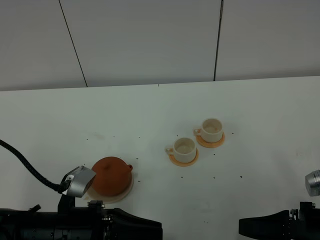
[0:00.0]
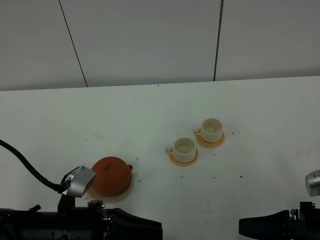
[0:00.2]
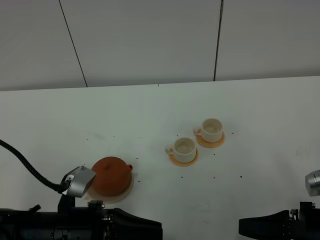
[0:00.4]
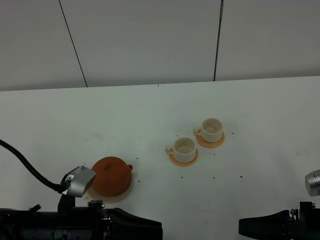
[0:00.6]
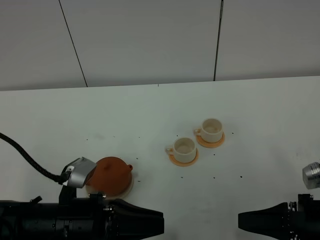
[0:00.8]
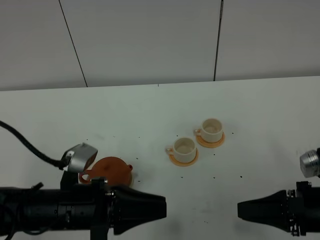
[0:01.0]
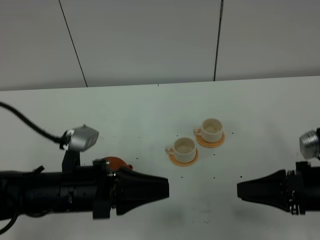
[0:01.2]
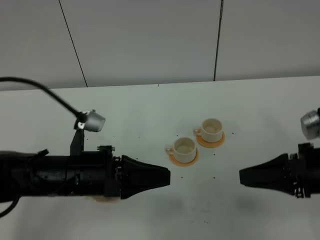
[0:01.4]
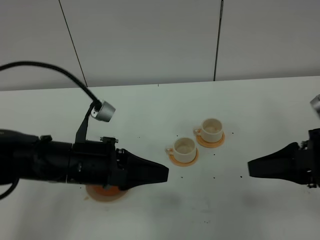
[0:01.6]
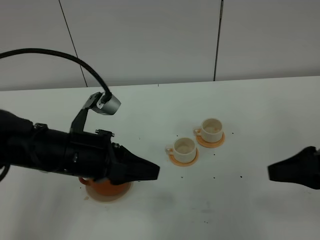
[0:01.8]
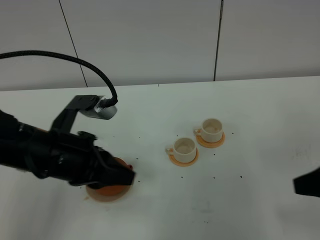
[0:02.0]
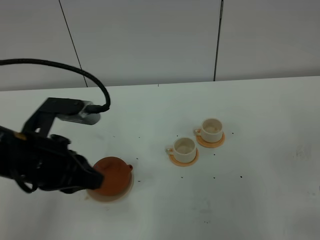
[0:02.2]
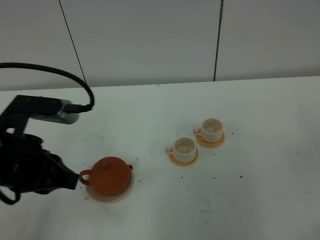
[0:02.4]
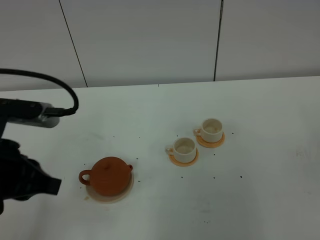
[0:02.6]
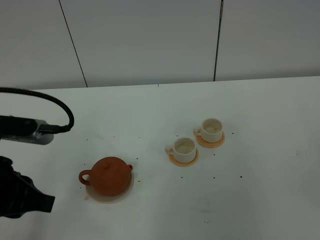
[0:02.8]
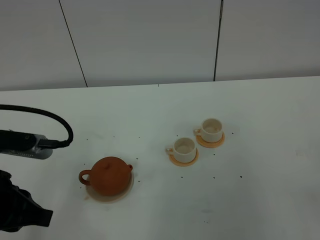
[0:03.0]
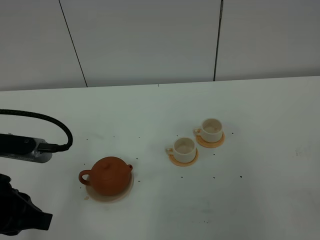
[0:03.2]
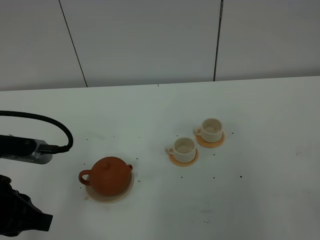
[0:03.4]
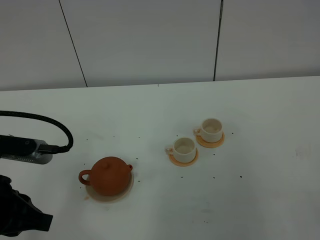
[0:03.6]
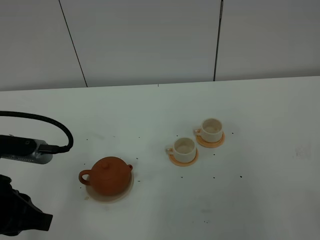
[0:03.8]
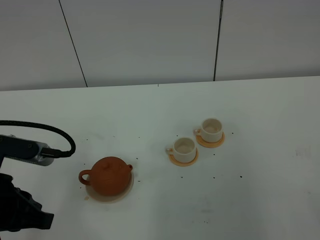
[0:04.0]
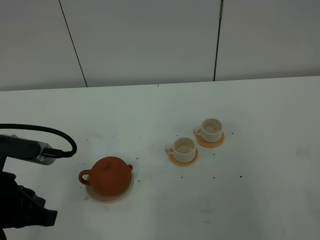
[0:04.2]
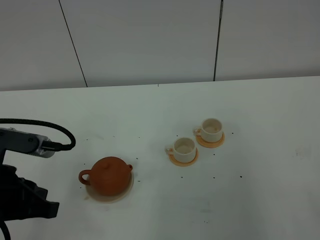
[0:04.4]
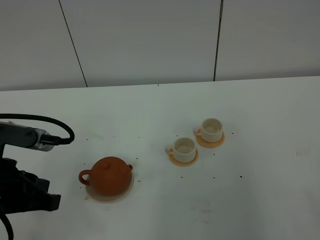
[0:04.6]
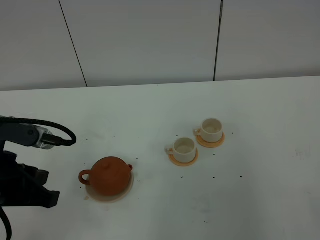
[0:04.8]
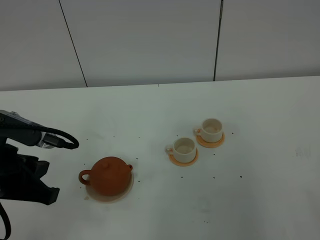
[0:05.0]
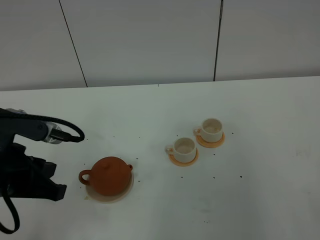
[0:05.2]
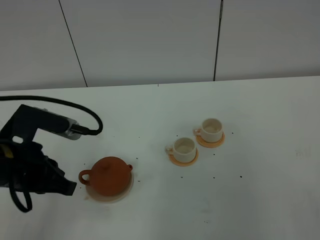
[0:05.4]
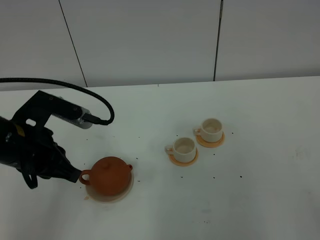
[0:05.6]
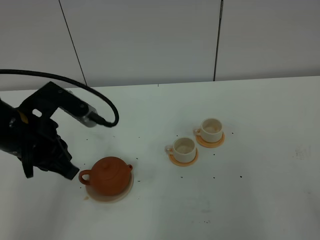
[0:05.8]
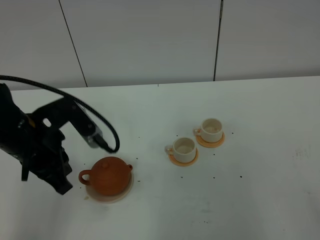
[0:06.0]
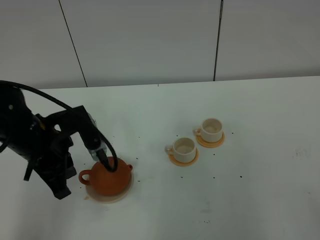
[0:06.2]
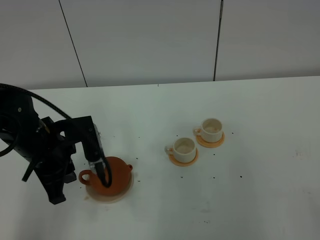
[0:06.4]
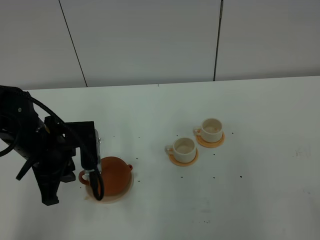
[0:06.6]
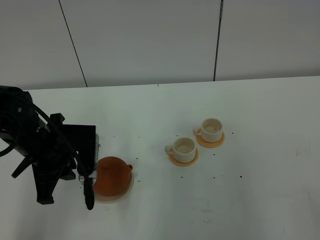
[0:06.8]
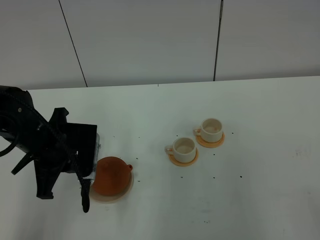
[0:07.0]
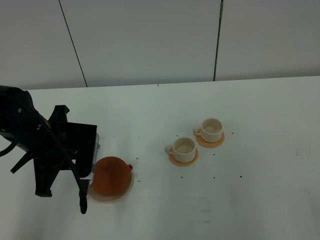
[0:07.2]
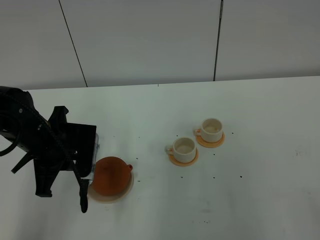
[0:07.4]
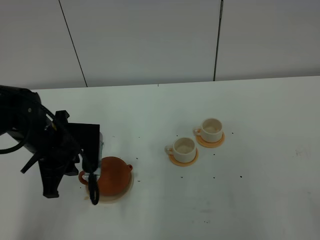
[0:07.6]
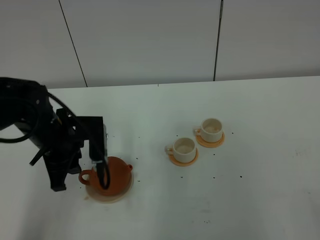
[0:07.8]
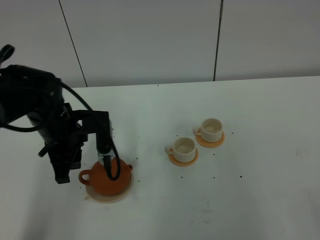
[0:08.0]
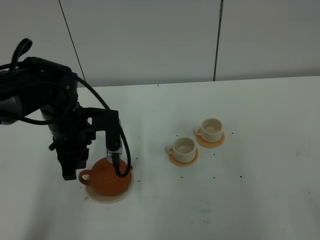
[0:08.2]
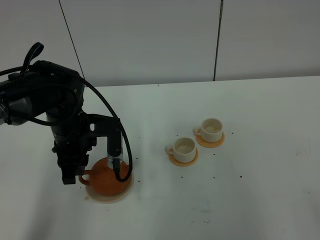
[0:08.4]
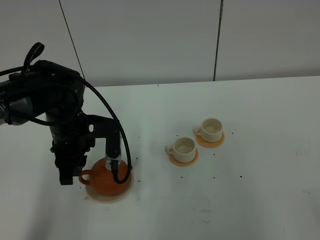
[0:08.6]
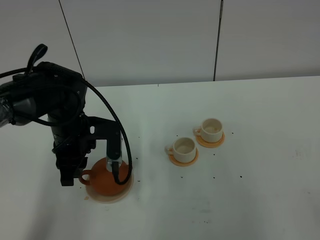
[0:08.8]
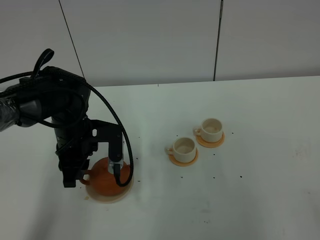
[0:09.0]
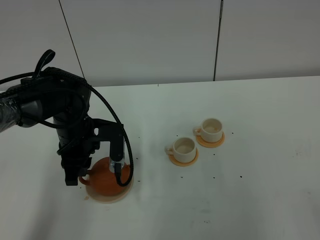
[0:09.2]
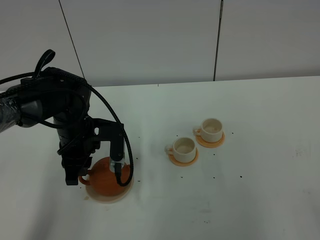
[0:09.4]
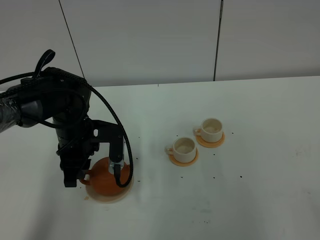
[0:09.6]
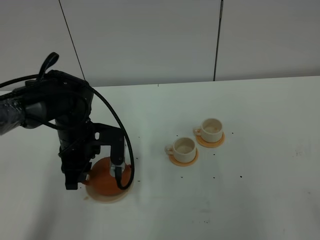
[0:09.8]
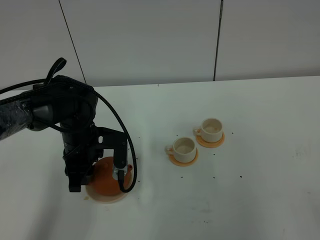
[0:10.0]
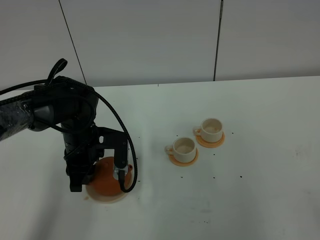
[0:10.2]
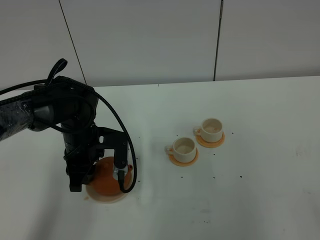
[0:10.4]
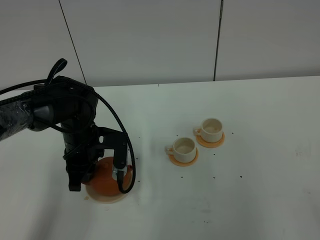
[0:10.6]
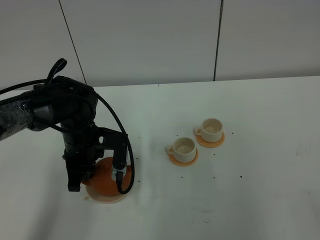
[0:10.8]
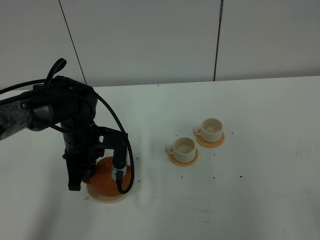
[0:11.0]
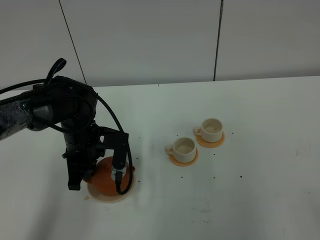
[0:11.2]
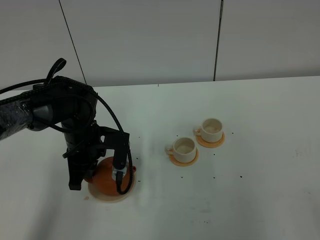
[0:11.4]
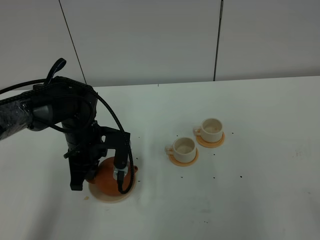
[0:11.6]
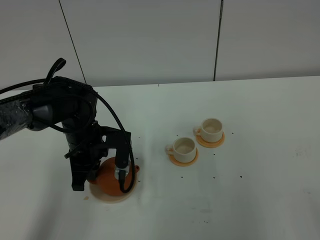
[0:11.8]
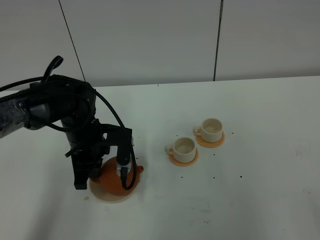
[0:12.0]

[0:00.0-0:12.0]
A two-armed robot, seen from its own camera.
Task of the whole recording: grasp the brown teapot and pour the tea into the two white teacups one by one, put the brown teapot back in its original place.
0:00.0 to 0:01.6: The right gripper shifts approximately 15 cm upward and forward, and closes up. The left gripper heads forward and upward, covering approximately 10 cm.
0:01.6 to 0:03.0: The right gripper is displaced backward by some 20 cm, while the left gripper travels to the left, backward and upward by approximately 15 cm.
0:04.4 to 0:06.0: The left gripper is displaced forward by approximately 10 cm.
0:06.0 to 0:07.6: The left gripper ends up about 5 cm from where it was.
0:07.6 to 0:09.0: The left gripper moves some 5 cm.
0:09.0 to 0:10.4: The grippers make only small movements.
0:10.4 to 0:12.0: The left gripper closes.

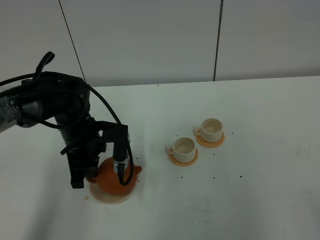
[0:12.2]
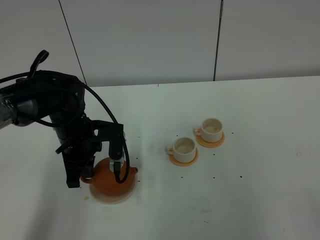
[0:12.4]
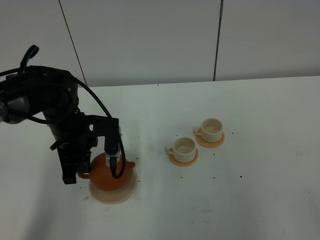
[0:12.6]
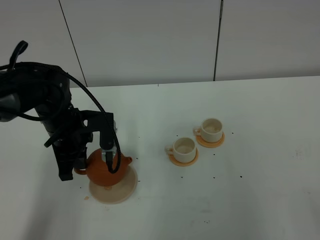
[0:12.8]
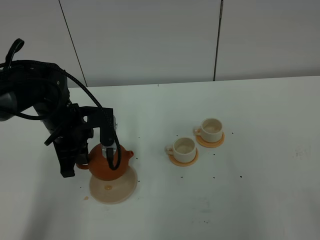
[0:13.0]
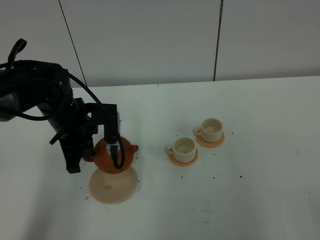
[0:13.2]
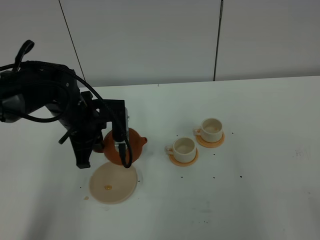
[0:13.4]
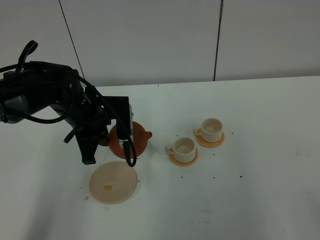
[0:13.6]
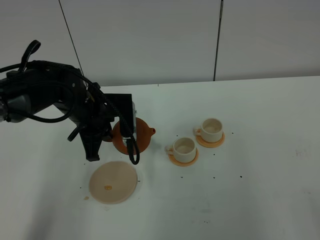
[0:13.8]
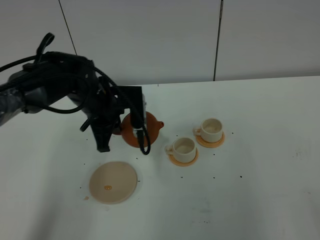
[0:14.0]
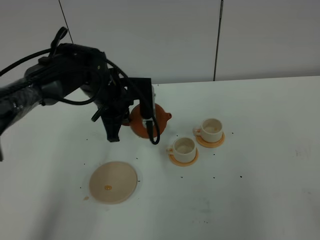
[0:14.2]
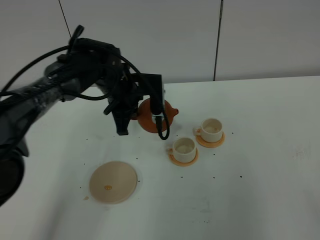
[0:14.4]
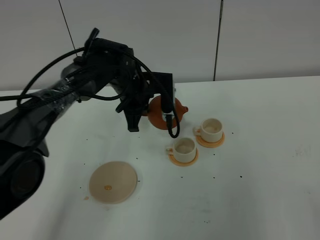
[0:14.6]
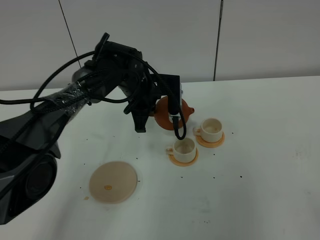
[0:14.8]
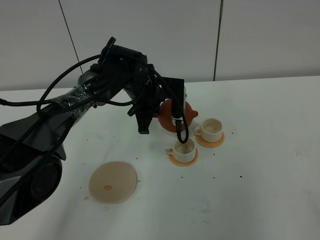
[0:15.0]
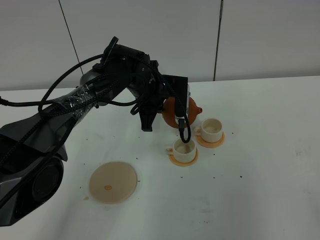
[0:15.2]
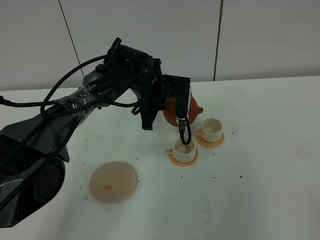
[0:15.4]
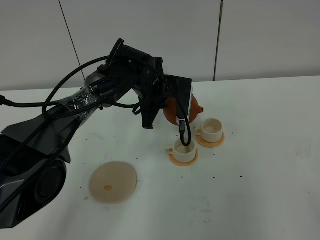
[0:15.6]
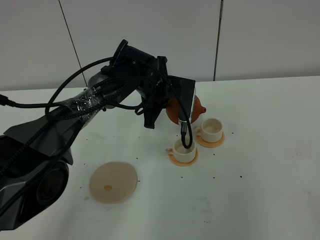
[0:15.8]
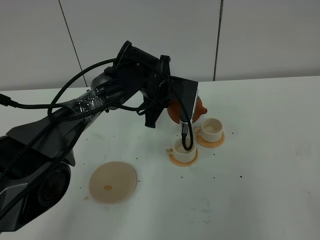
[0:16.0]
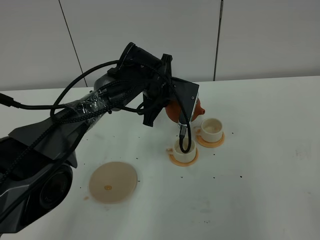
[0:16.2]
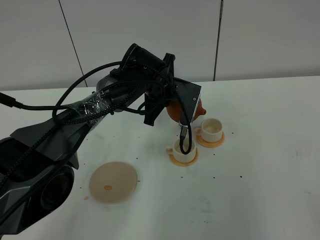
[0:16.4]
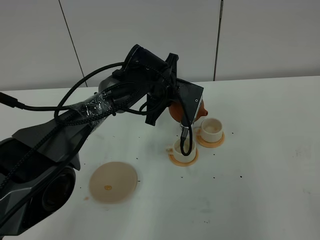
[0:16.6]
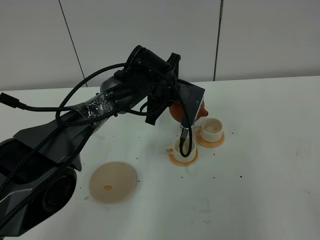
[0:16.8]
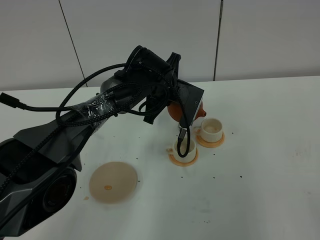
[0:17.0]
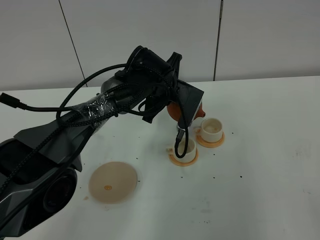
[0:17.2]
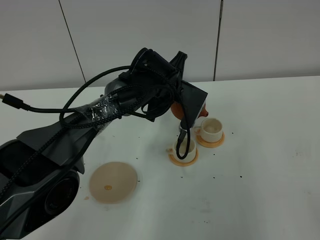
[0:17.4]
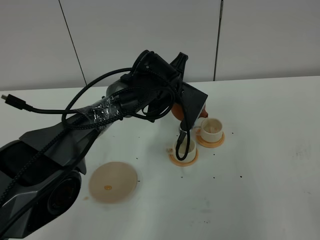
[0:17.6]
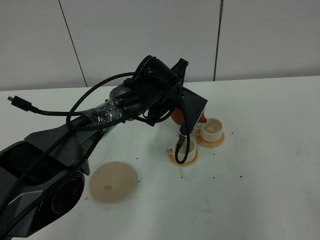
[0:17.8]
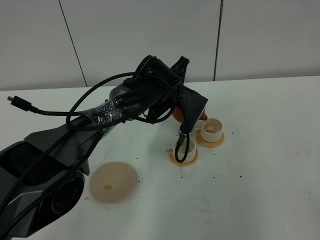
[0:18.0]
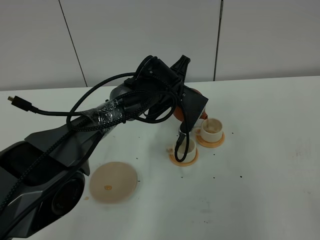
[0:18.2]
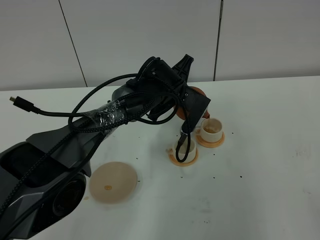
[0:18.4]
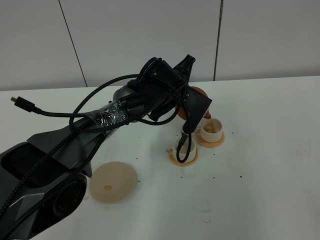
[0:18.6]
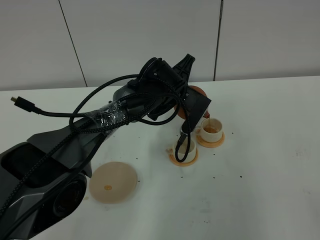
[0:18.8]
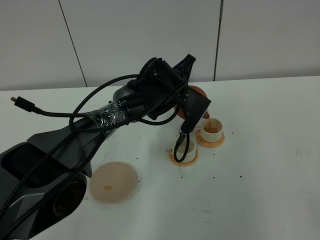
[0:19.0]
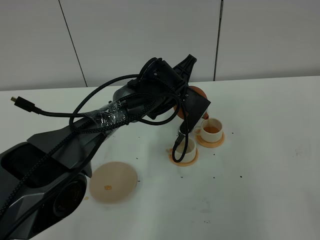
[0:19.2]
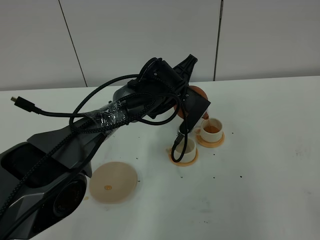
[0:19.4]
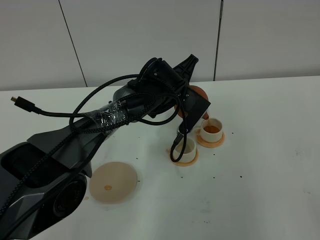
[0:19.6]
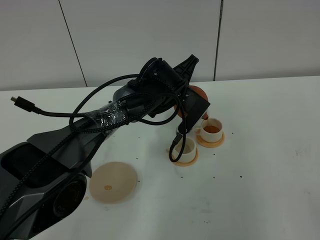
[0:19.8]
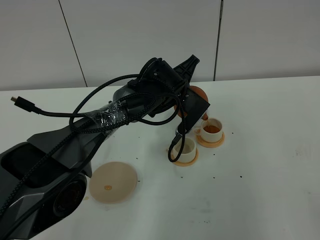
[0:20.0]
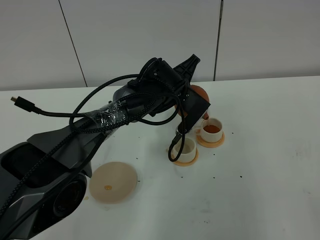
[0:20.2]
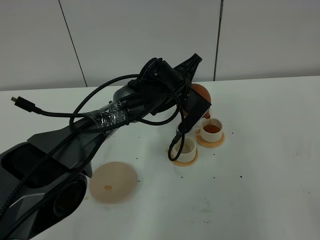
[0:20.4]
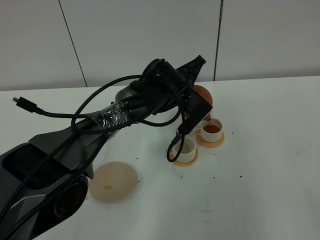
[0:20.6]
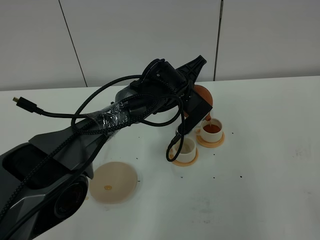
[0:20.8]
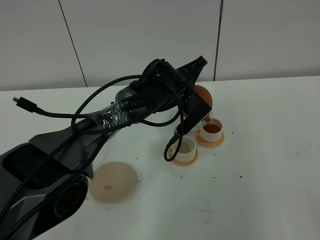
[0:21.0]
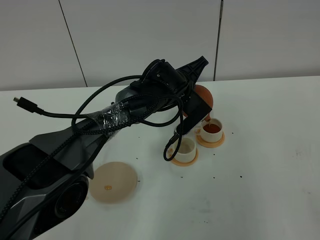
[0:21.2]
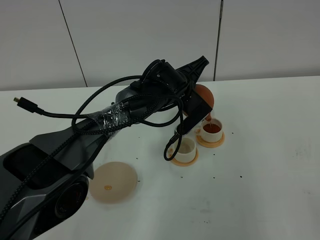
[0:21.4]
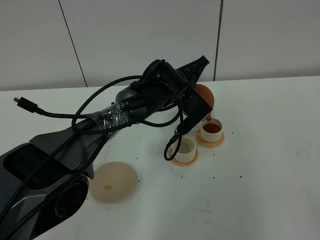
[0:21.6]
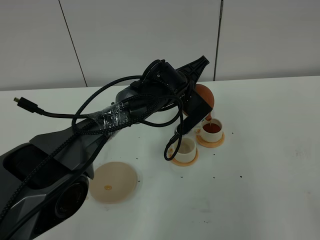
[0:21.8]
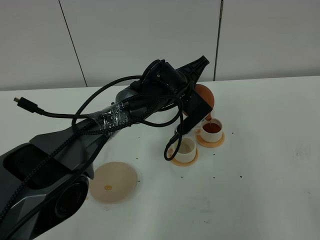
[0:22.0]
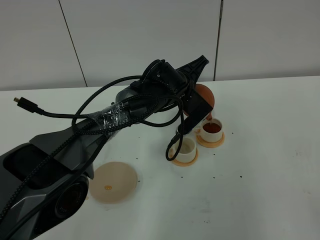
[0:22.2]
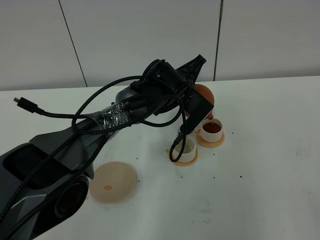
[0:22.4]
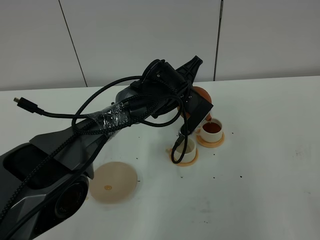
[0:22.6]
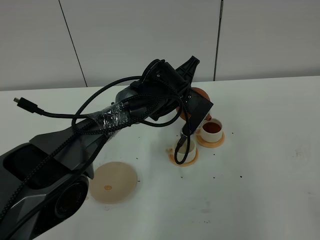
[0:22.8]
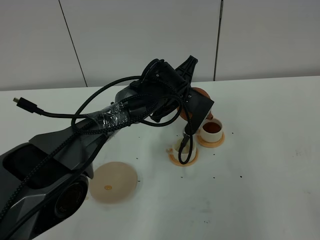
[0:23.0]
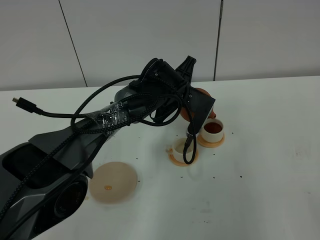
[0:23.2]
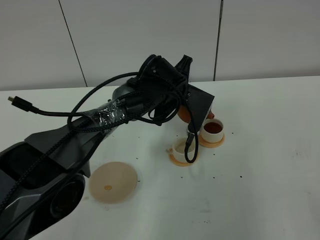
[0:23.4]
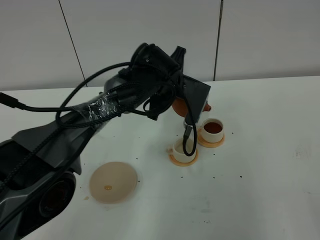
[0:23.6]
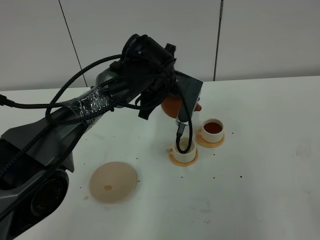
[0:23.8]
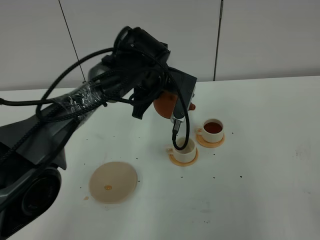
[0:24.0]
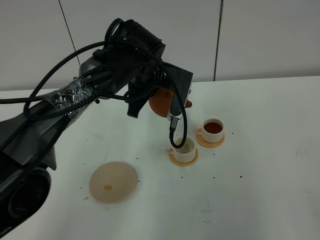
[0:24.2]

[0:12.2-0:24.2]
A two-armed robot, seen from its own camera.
Task of the whole recording: grasp the brown teapot and pour the tea into the two white teacups one by one, put the brown teapot back in its original place.
Step, 0:12.8 to 0:23.4: Pour tea into the teacup with the left gripper.
0:13.8 to 0:15.2: The left gripper travels to the right and forward by approximately 15 cm.
0:16.6 to 0:18.2: The grippers make only small movements.
0:18.2 to 0:22.6: The grippers move only a little.
0:22.6 to 0:24.2: The left gripper travels upward and to the left by some 10 cm.
